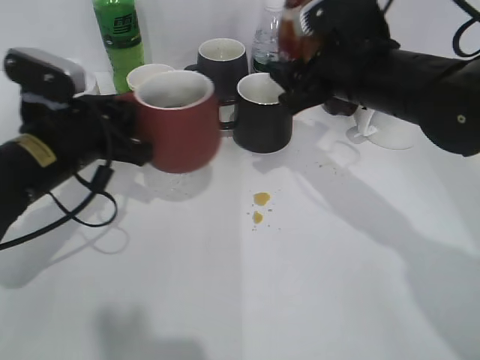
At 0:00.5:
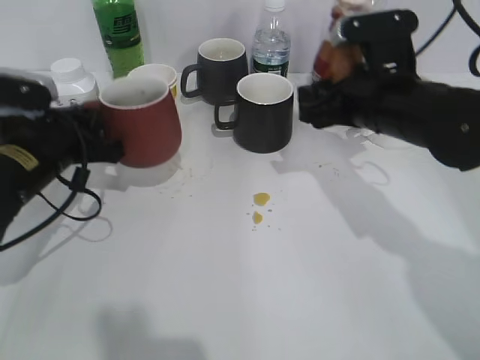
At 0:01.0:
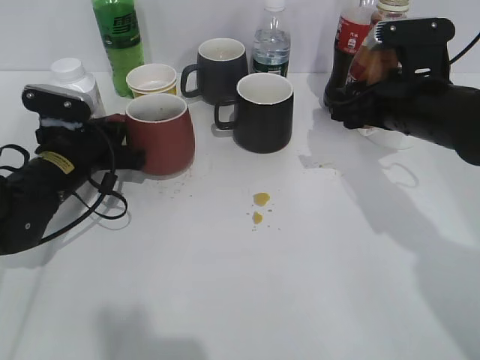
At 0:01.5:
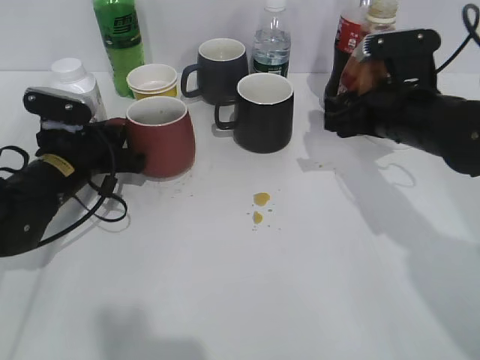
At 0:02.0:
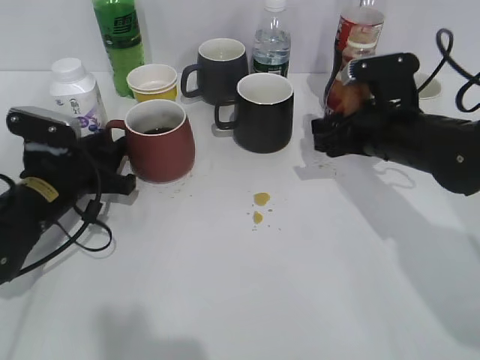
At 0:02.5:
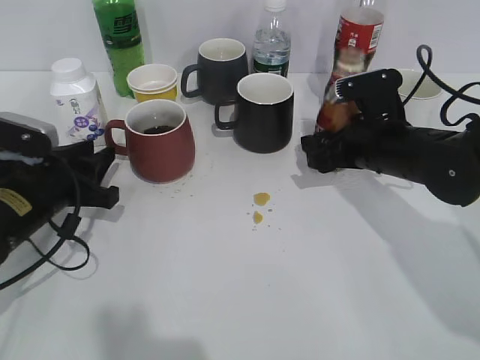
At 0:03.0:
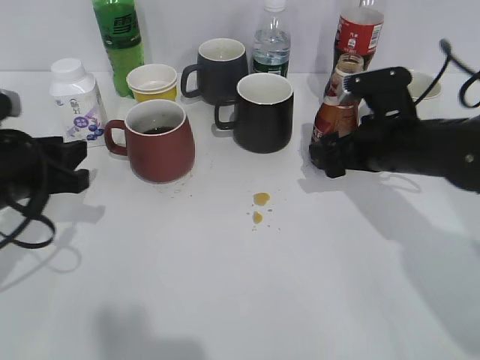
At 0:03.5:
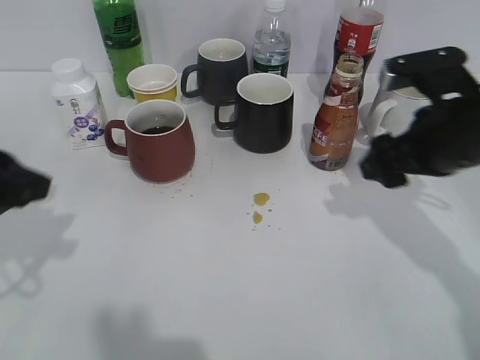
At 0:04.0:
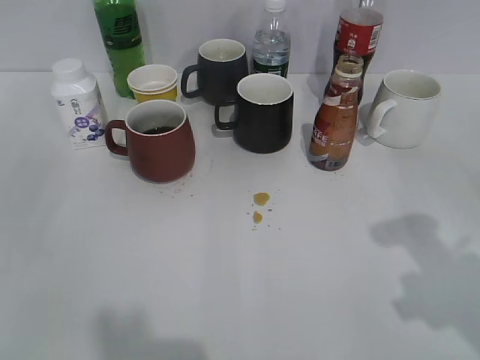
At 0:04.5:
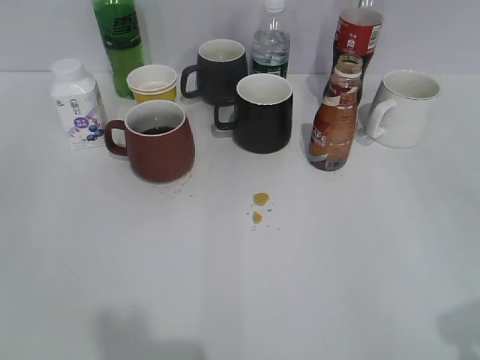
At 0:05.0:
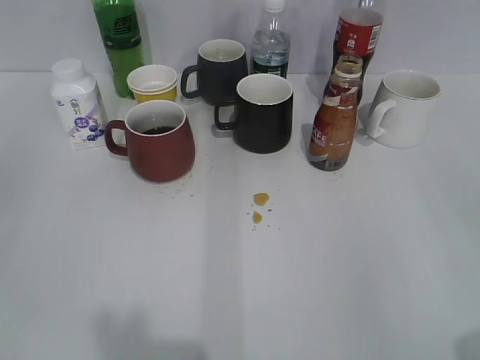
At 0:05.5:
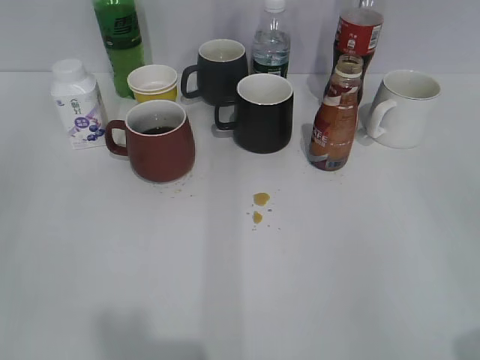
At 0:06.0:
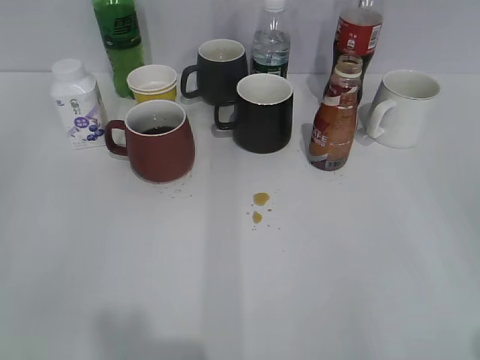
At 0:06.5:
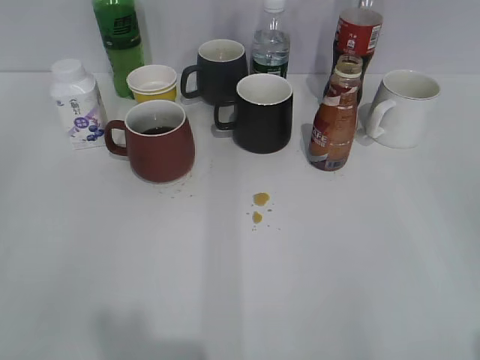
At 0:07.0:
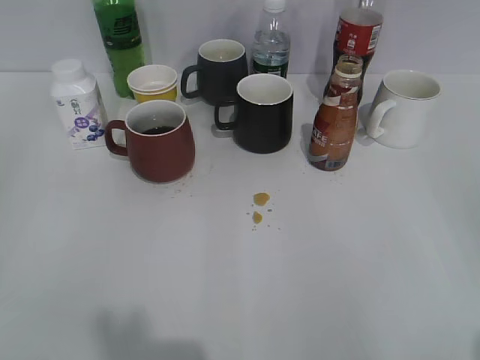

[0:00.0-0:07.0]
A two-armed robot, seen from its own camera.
Step, 0:00.0 to 0:01.0: Place the red cup on the table with left gripper.
Step, 0:01.5 to 0:03.0: Place the coffee bottle on the table with right gripper.
0:00.0 to 0:02.0: The left gripper is displaced downward by about 10 cm, and opens up. The right gripper travels downward and to the right by about 10 cm.
0:02.0 to 0:03.5: The right gripper travels backward by roughly 5 cm, and opens. The left gripper moves upward and backward, approximately 15 cm.
0:03.5 to 0:05.0: The left gripper is displaced backward by about 15 cm. The right gripper heads backward, covering some 30 cm, and closes.

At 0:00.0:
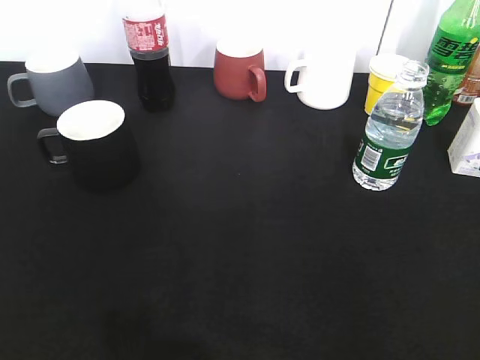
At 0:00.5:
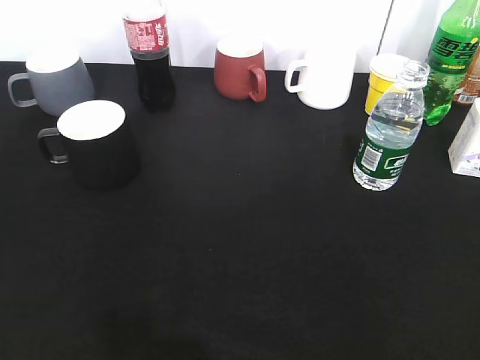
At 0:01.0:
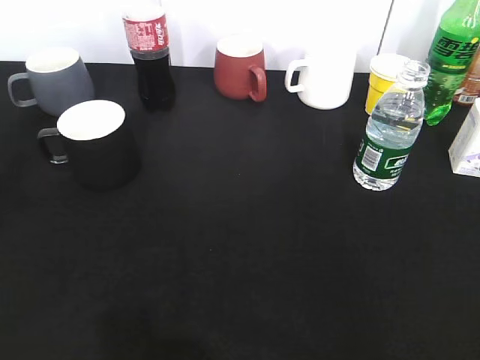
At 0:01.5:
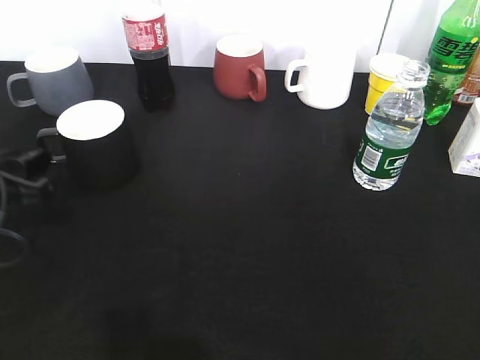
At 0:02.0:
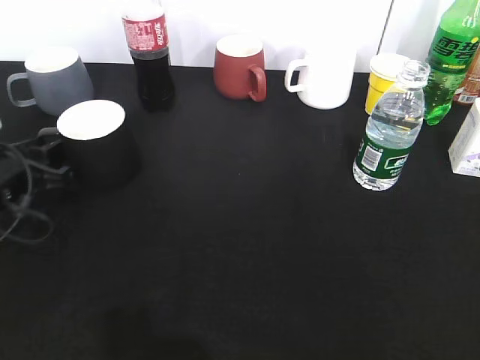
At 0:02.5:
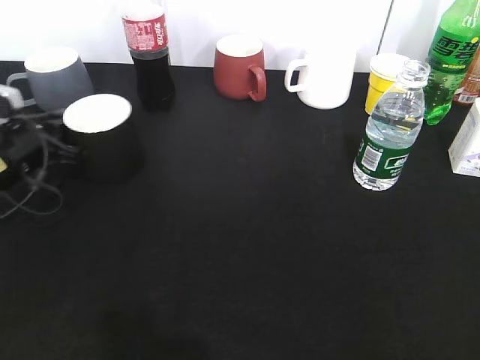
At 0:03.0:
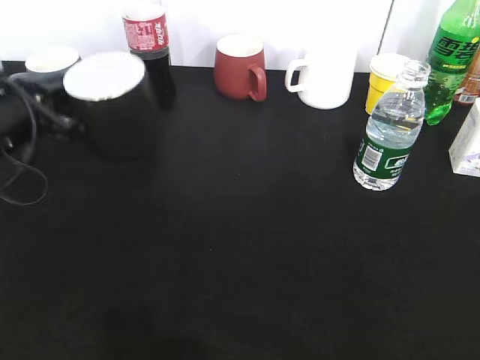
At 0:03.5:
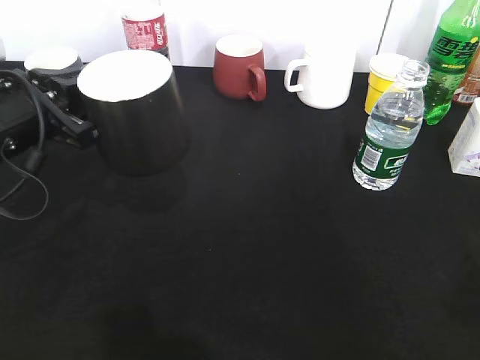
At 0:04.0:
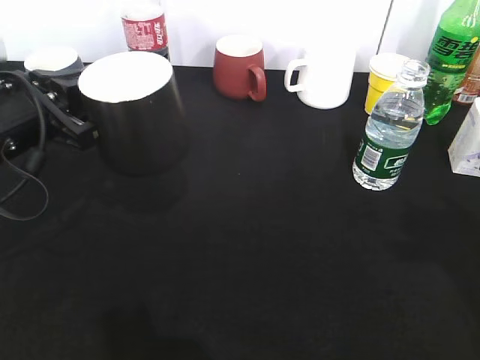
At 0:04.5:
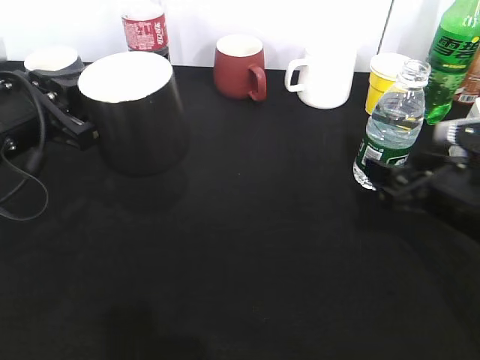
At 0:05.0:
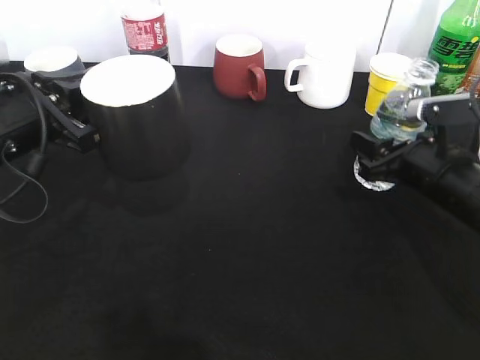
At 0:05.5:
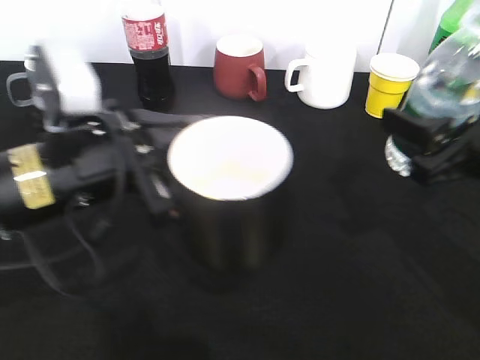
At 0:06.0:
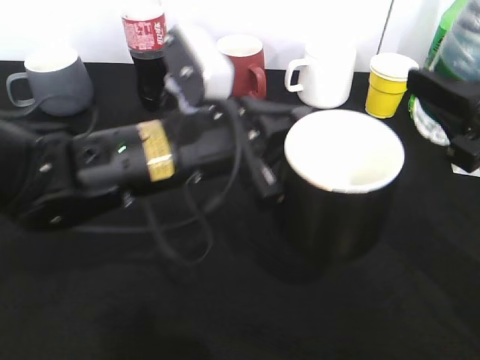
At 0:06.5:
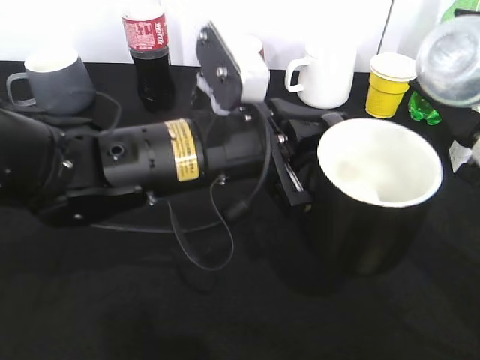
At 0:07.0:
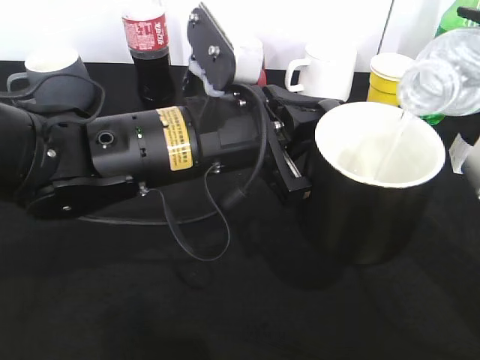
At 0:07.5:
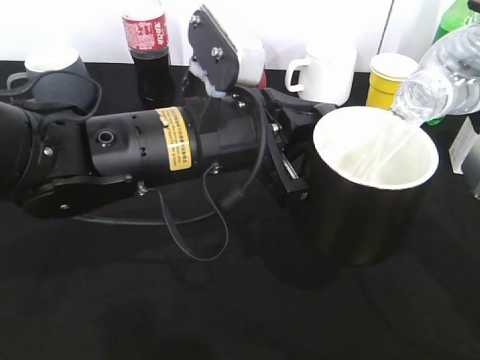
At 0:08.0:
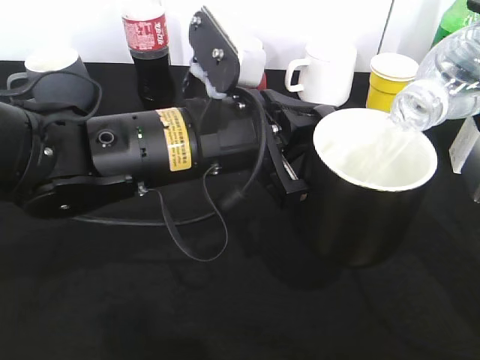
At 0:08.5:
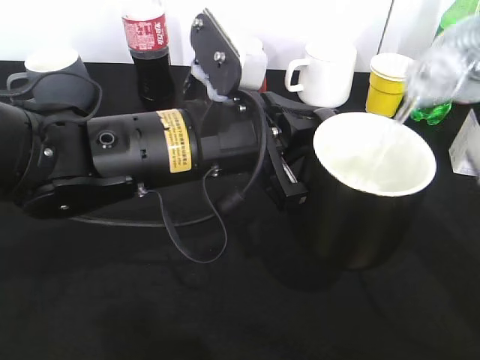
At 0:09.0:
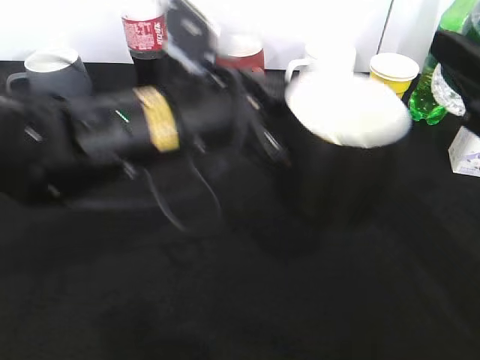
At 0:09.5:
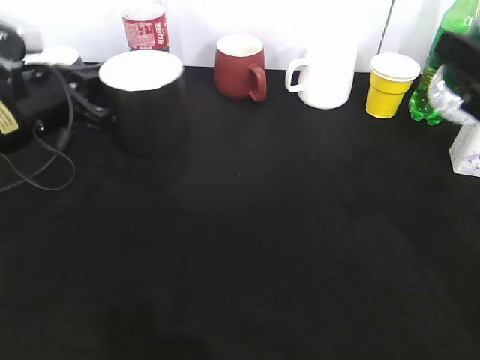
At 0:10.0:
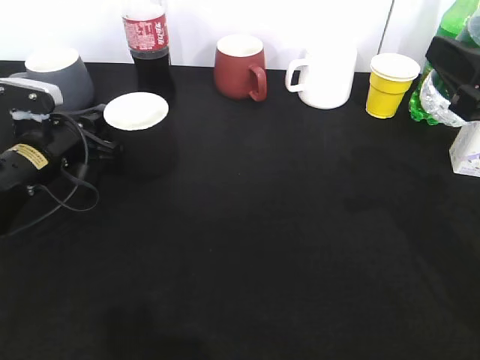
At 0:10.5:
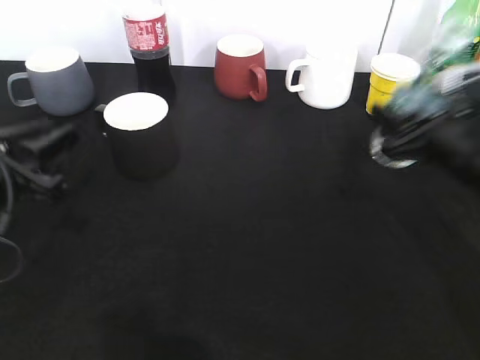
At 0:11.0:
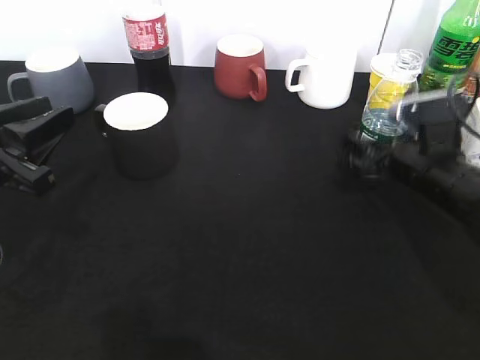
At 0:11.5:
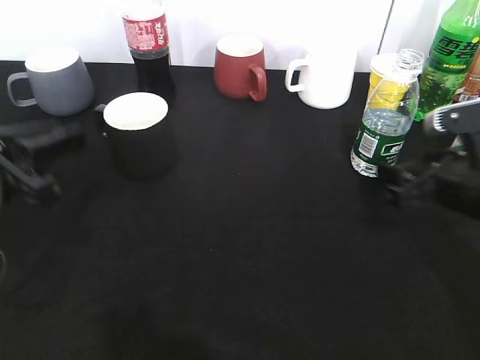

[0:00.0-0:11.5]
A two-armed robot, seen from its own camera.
Step, 0:00.5 to 0:02.5: Grasp the black cup with left gripper.
Step, 0:03.5 to 0:04.5: Grasp the bottle with water with right gripper.
Step, 0:05.0 to 0:08.5: Pour the water from bottle to cup with right gripper.
Step, 0:09.0 to 0:10.0: Place the black cup on the table with left gripper.
Step, 0:10.5 to 0:11.0: Place the water bottle on the table with right gripper.
0:00.0 to 0:02.0: The left gripper goes some 35 cm forward and downward.
0:02.0 to 0:04.0: The left gripper travels upward and to the right by some 10 cm, and closes up. Meanwhile the right gripper is displaced forward by approximately 15 cm.
0:04.0 to 0:06.0: The right gripper goes downward and returns, approximately 10 cm each way, and opens and closes again; the left gripper travels to the right by approximately 15 cm.
0:07.5 to 0:09.5: The left gripper travels to the left and forward by approximately 20 cm.
0:09.5 to 0:11.5: The left gripper moves backward, some 10 cm, and opens up. Meanwhile the right gripper moves downward, approximately 10 cm, and opens up.
